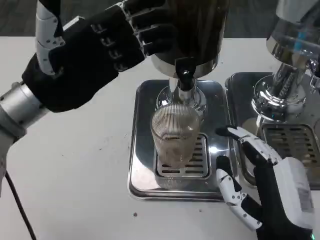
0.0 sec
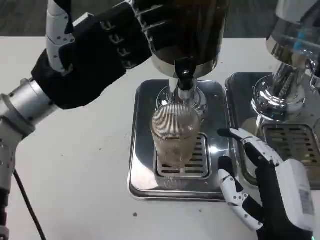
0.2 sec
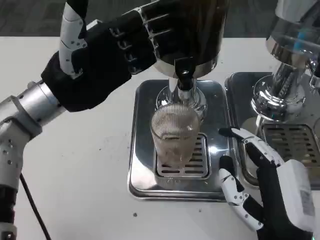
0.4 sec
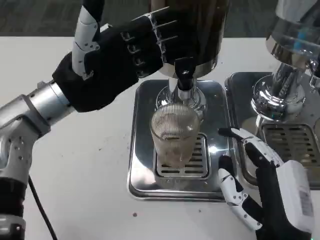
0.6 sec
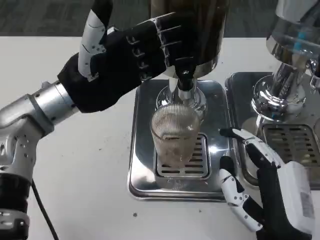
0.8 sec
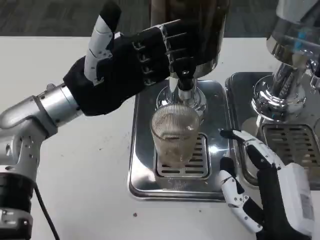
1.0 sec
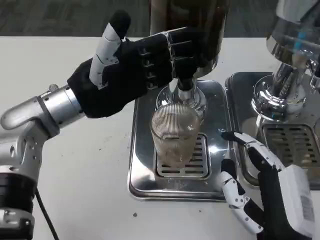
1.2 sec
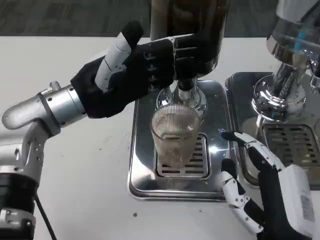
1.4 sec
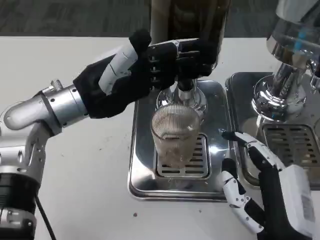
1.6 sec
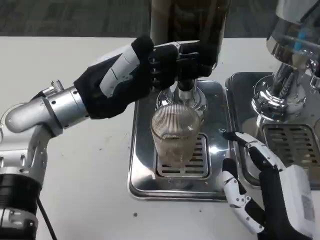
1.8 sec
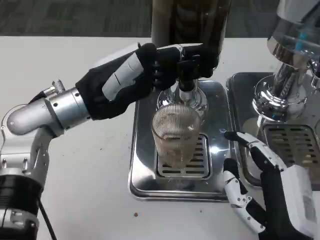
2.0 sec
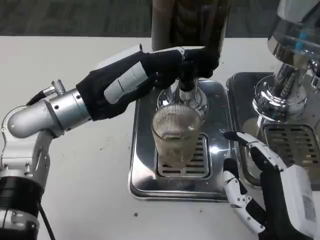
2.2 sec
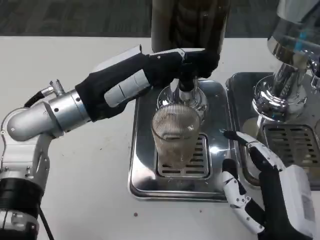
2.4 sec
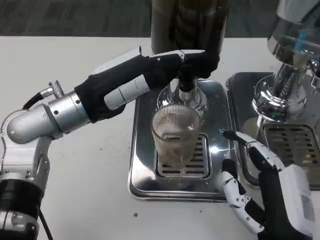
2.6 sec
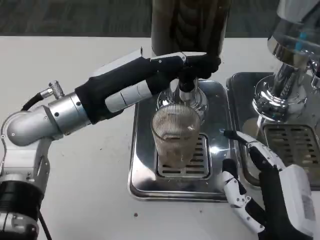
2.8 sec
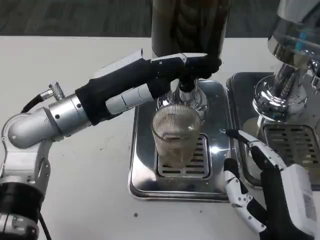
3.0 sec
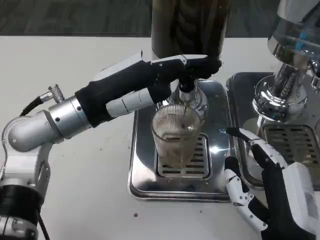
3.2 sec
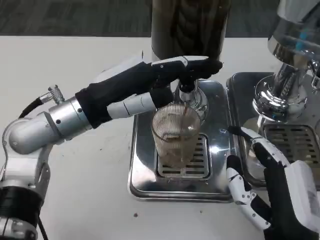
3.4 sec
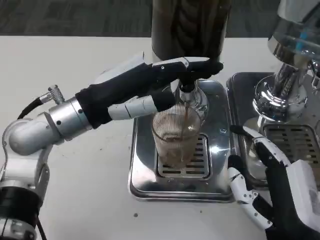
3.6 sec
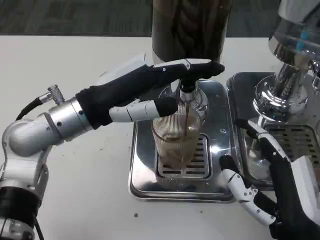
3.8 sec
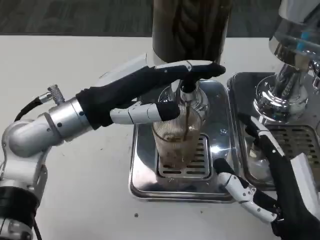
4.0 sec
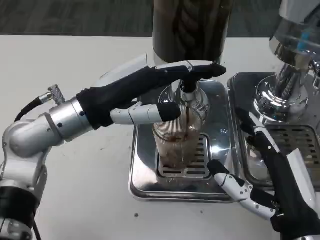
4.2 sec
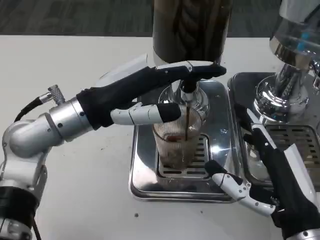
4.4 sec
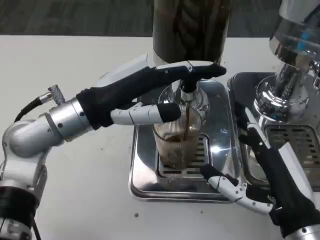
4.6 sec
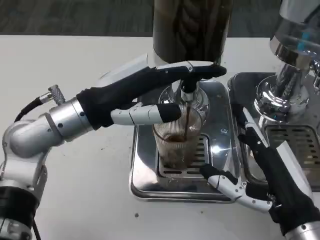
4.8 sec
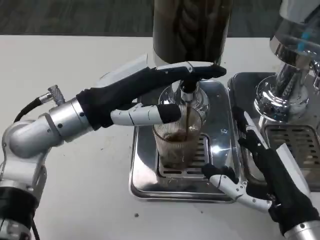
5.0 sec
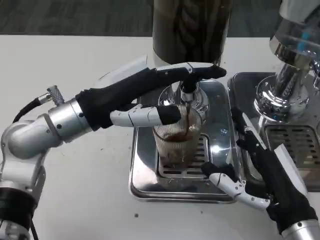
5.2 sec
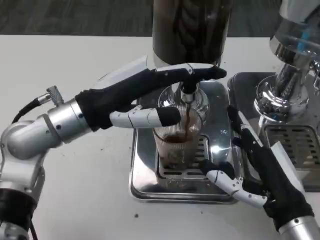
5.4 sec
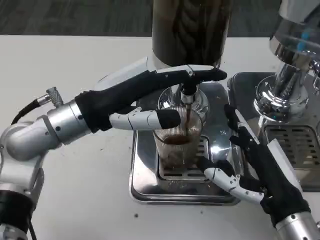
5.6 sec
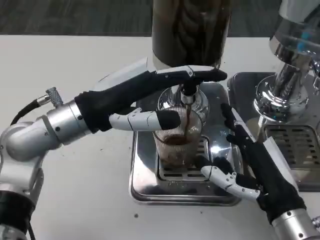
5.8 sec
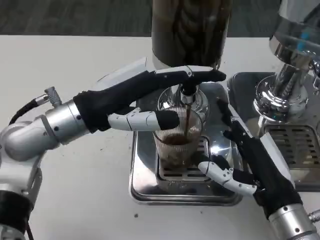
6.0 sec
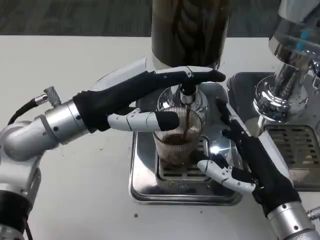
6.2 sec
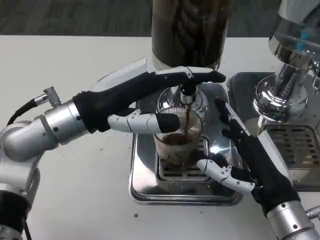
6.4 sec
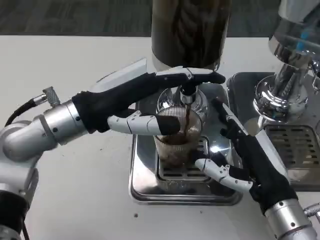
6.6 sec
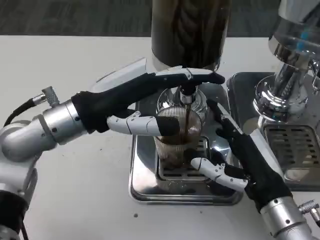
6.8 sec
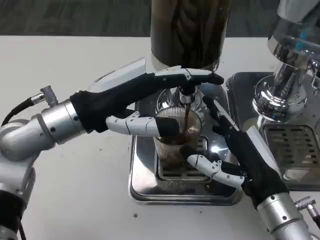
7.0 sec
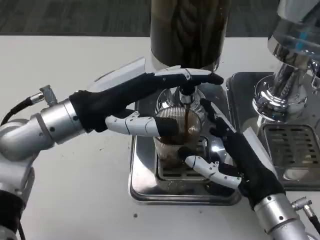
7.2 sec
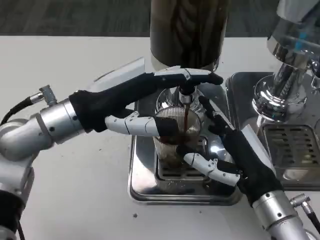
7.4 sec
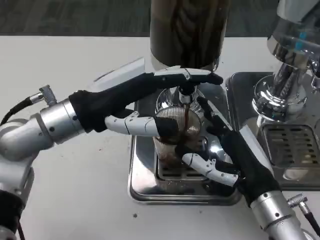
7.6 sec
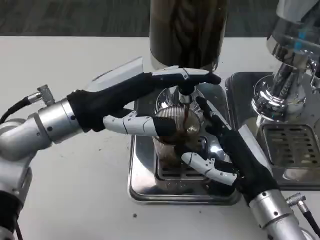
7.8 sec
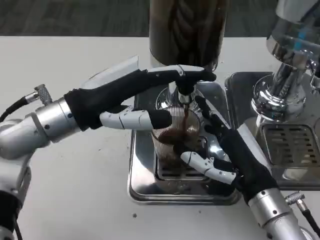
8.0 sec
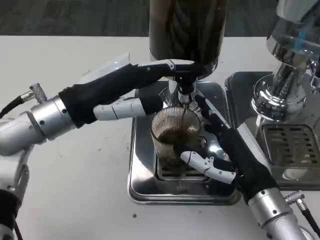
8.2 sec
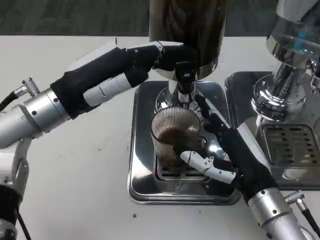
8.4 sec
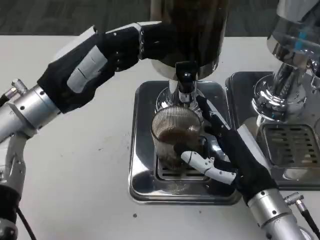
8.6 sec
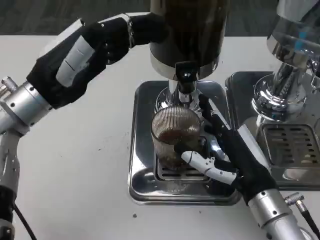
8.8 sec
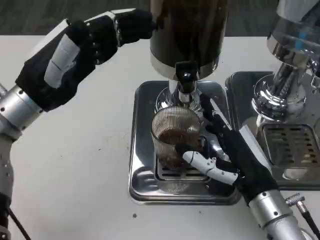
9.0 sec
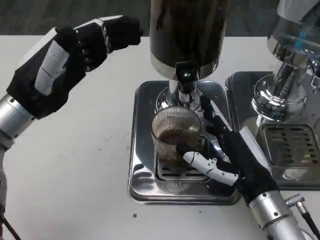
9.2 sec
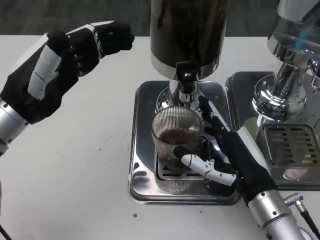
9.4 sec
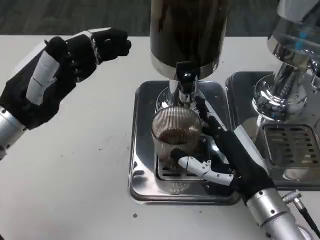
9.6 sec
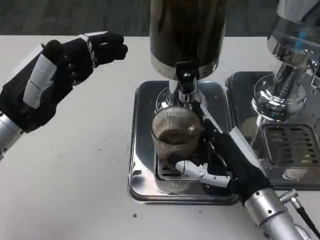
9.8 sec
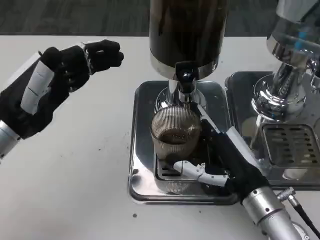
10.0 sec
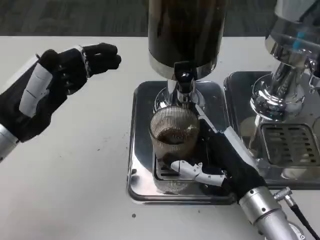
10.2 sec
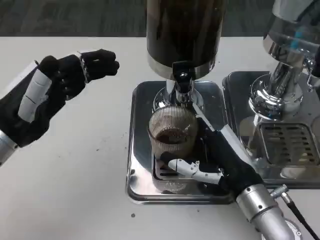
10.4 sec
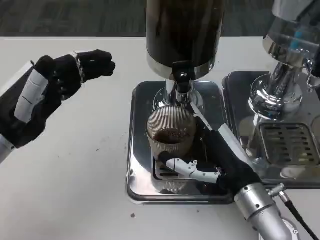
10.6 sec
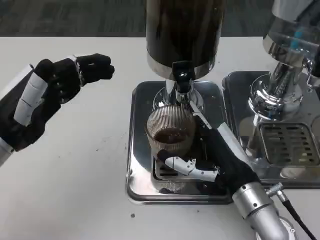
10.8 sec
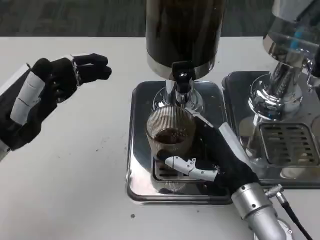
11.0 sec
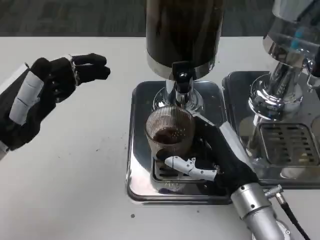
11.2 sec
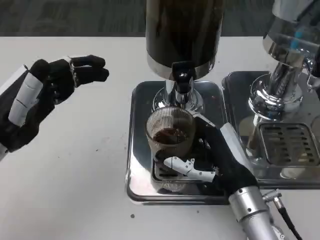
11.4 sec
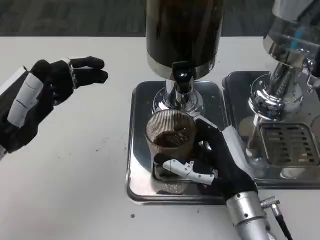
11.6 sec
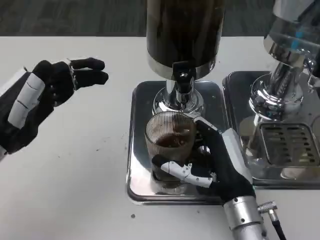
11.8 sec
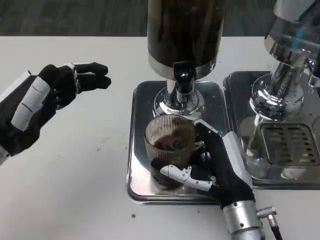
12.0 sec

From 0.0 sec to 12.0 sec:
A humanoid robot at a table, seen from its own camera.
Task of the whole recording: Grasp the cup under the faucet to collect the drink, then remove the cup.
From 7.6 sec to 9.0 sec: The left hand travels to the left by roughly 5 cm.
From 9.0 sec to 10.4 sec: The left hand moves roughly 5 cm.
From 10.4 sec to 12.0 sec: The hands move only a little.

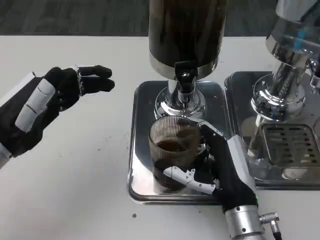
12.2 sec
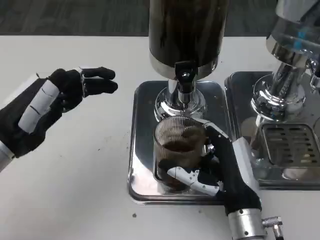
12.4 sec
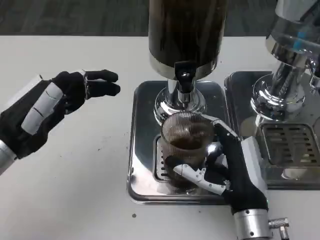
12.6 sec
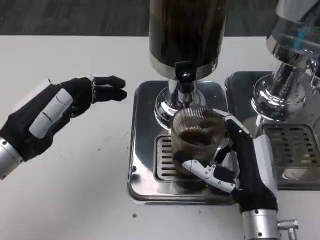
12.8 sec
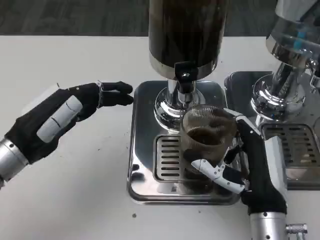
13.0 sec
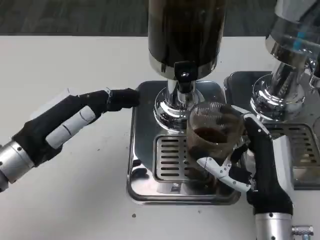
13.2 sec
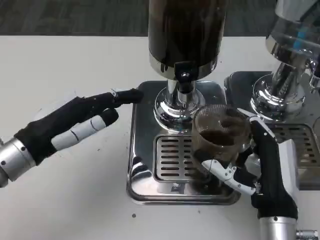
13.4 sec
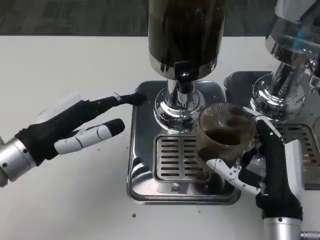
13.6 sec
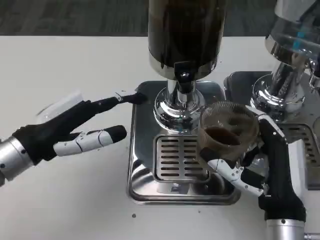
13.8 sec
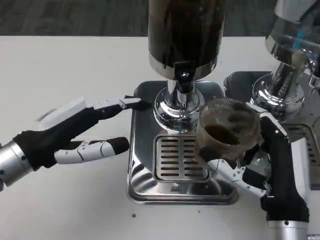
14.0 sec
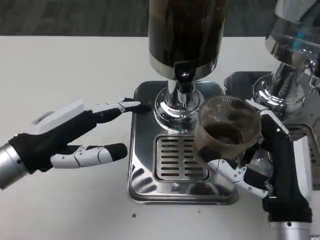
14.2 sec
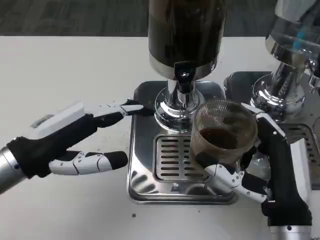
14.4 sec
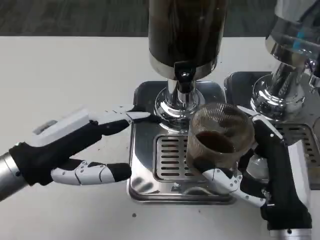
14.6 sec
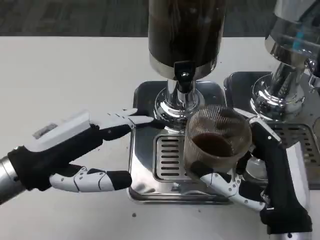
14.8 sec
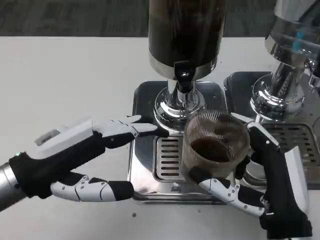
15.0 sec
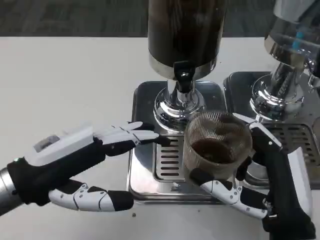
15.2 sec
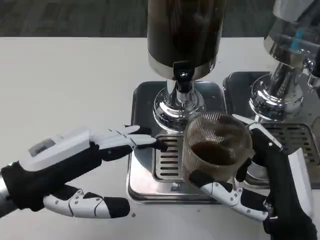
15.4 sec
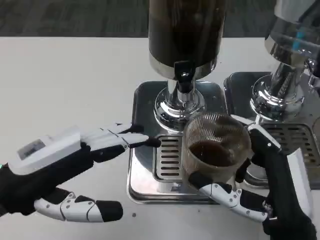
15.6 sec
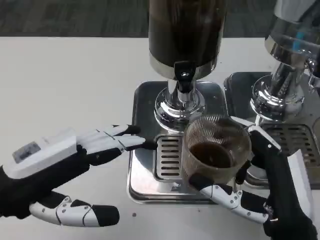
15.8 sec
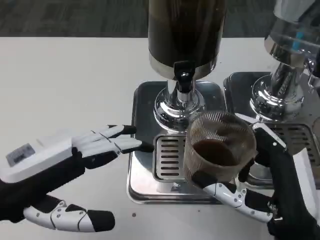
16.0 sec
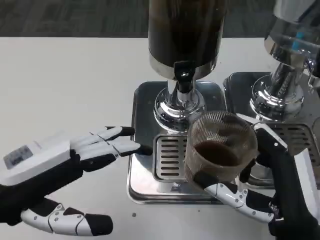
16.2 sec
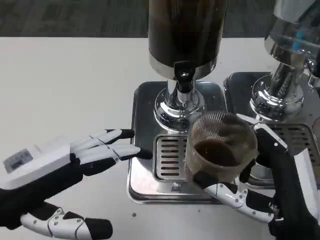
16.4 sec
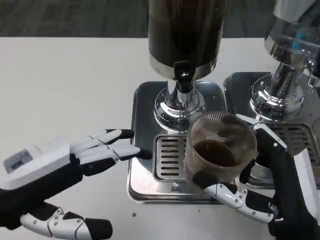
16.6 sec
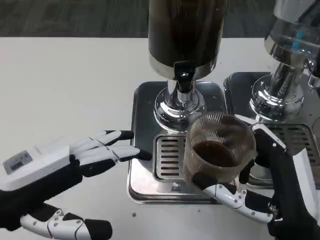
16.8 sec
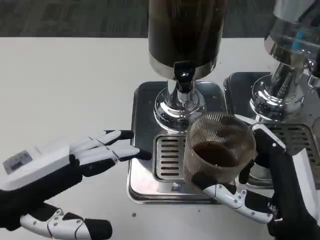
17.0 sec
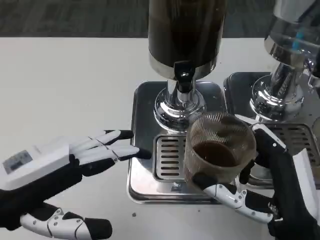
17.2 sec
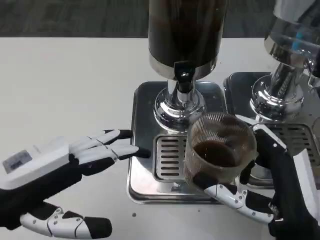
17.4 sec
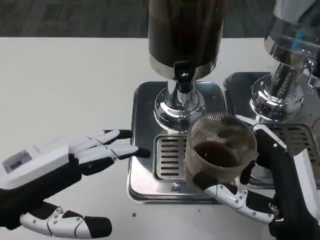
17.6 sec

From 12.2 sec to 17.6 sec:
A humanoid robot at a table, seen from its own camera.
Task of the whole recording: Grasp the cup under the faucet to collect the drink, then remove the cup.
From 16.2 sec to 17.6 sec: The two hands keep their place.

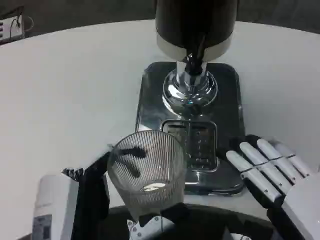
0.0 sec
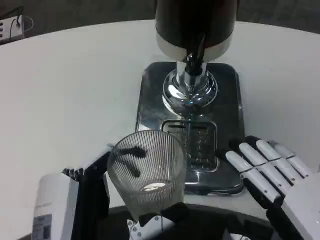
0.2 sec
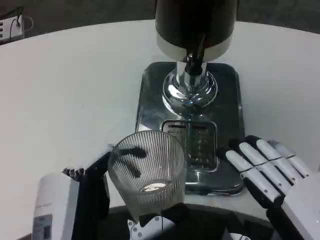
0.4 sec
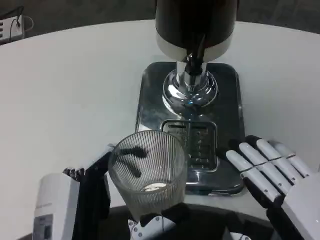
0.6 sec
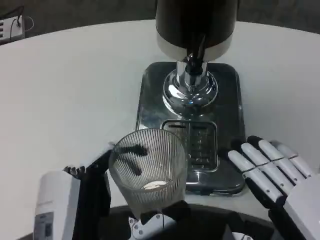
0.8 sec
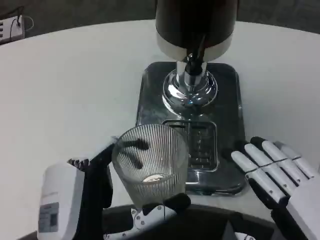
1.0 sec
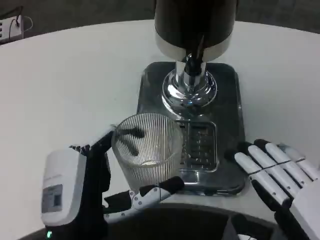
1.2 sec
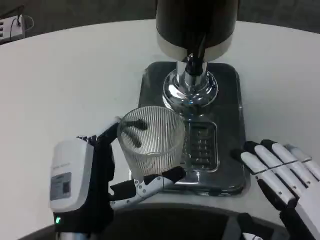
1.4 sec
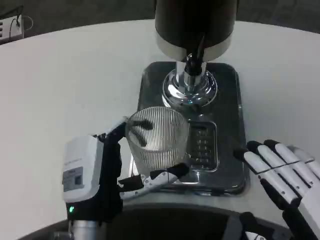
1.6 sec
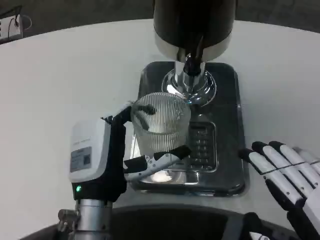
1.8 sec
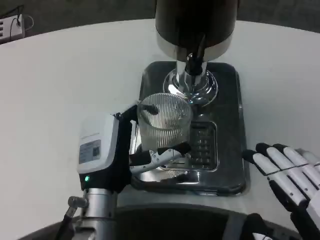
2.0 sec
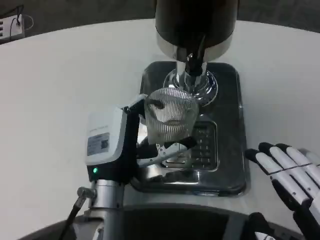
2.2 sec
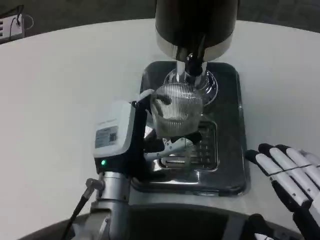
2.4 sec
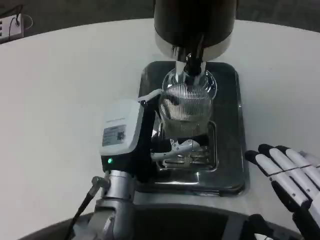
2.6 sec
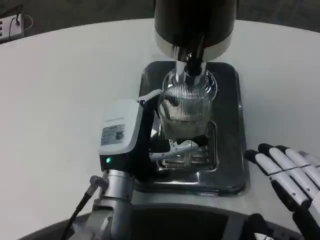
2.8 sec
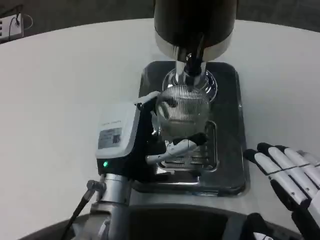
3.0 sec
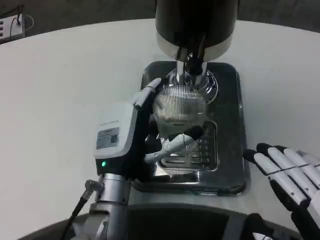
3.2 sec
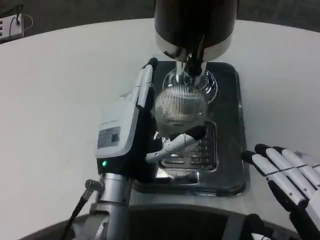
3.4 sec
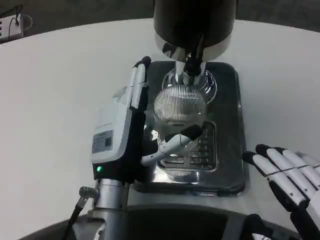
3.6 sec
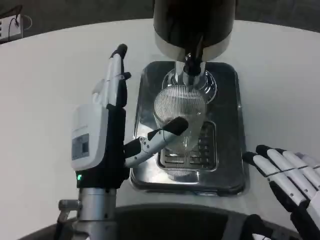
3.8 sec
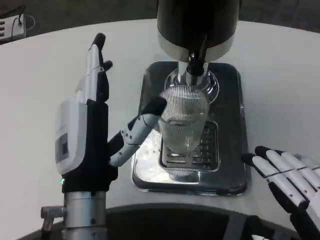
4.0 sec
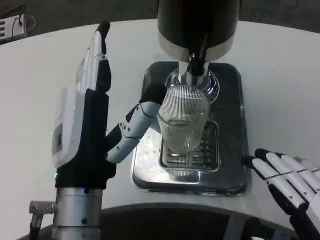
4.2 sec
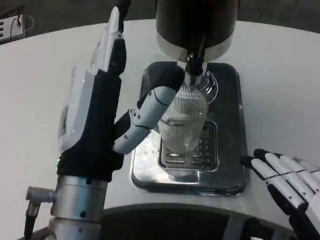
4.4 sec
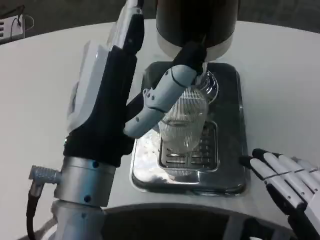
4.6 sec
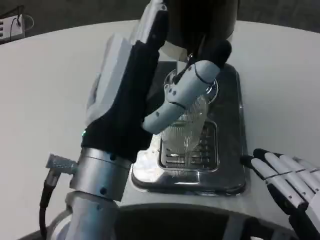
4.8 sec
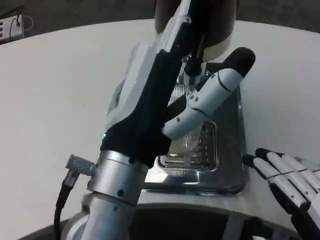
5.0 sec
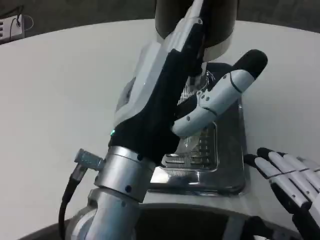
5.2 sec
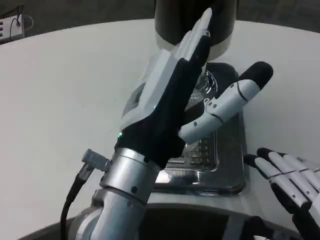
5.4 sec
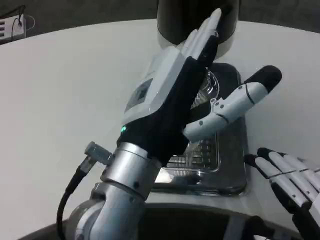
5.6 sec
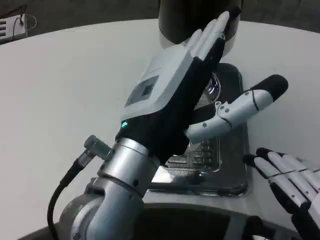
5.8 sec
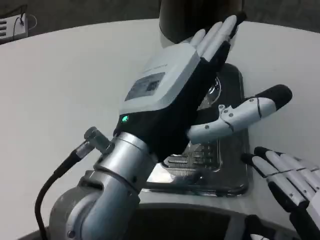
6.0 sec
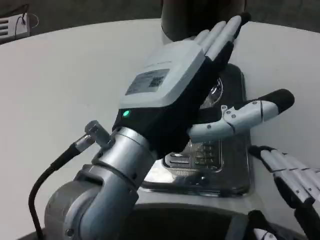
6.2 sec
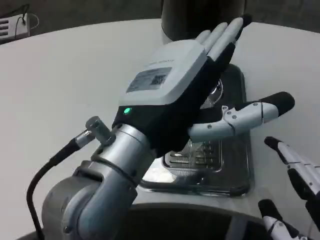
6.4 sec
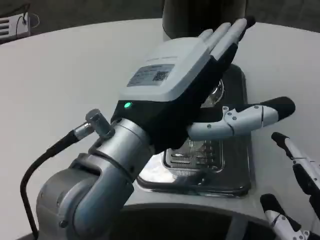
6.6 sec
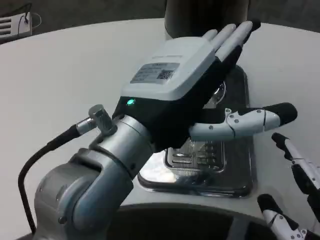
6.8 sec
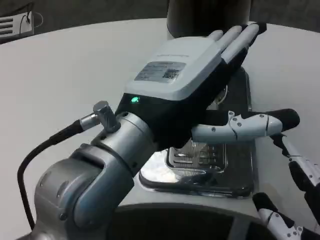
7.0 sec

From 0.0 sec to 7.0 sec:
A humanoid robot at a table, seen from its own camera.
Task of the whole recording: Grasp the cup under the faucet to collect the drink, then remove the cup.
From 0.0 sec to 1.4 sec: The left hand moves forward, roughly 5 cm.
From 1.4 sec to 2.8 sec: The left hand is displaced forward by about 10 cm.
From 2.8 sec to 4.2 sec: The left hand goes some 10 cm backward and upward.
From 4.2 sec to 5.6 sec: The left hand is displaced upward by some 5 cm.
